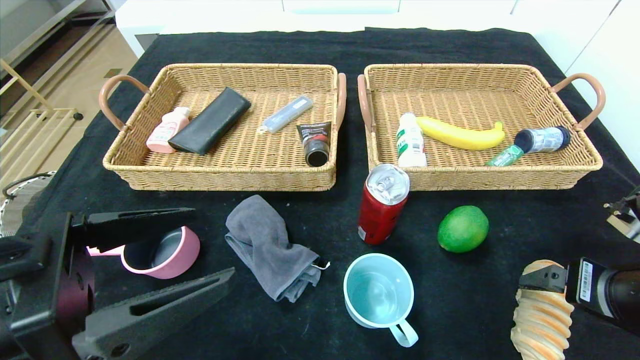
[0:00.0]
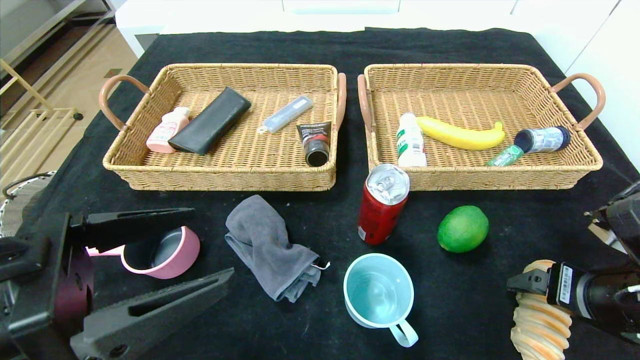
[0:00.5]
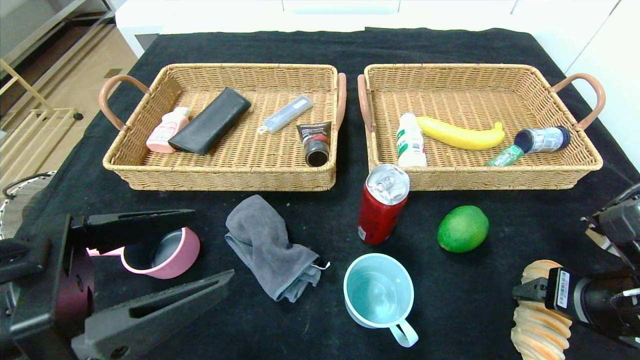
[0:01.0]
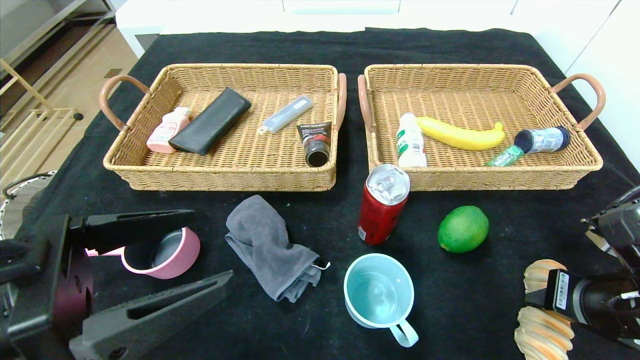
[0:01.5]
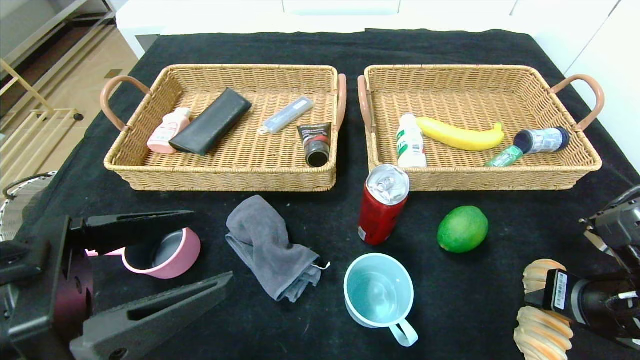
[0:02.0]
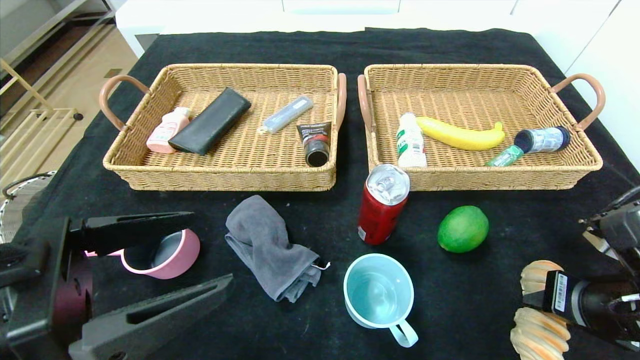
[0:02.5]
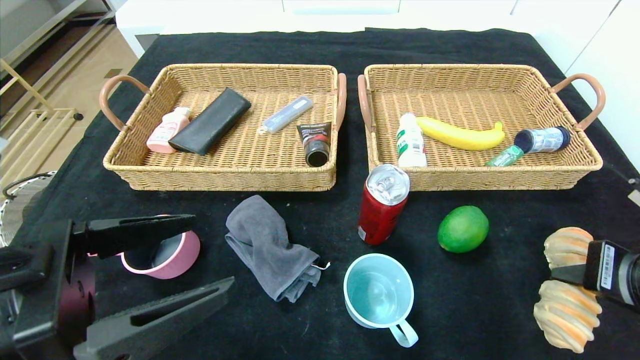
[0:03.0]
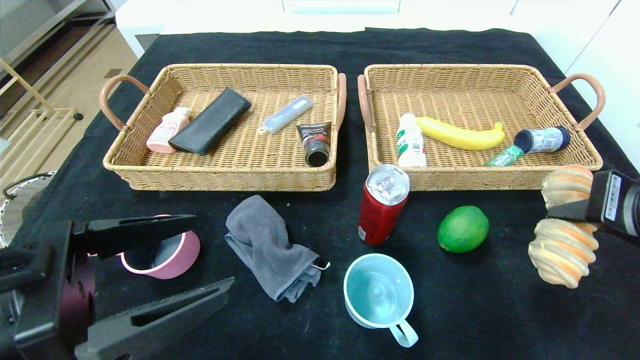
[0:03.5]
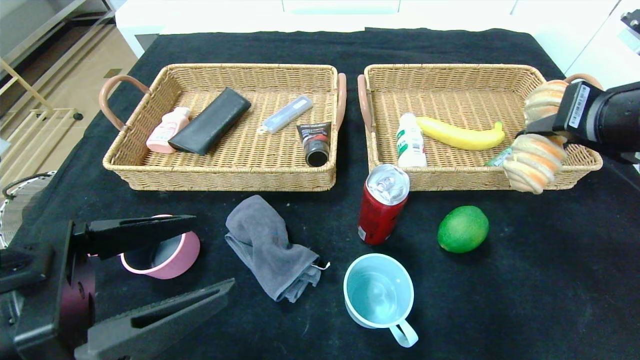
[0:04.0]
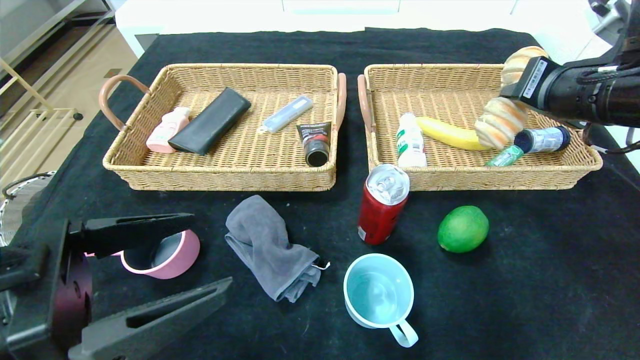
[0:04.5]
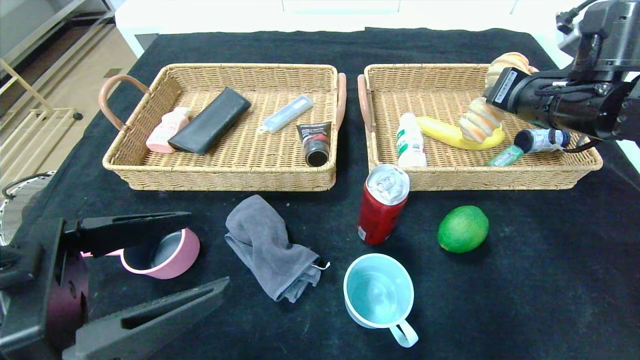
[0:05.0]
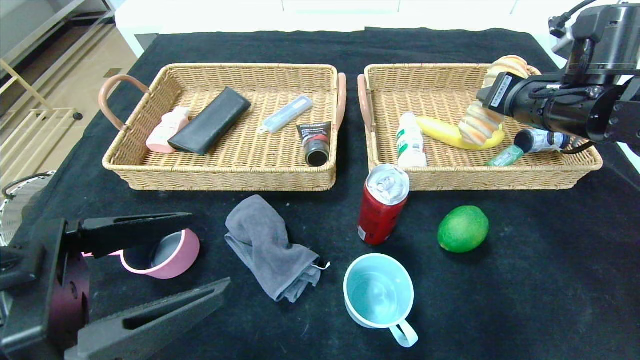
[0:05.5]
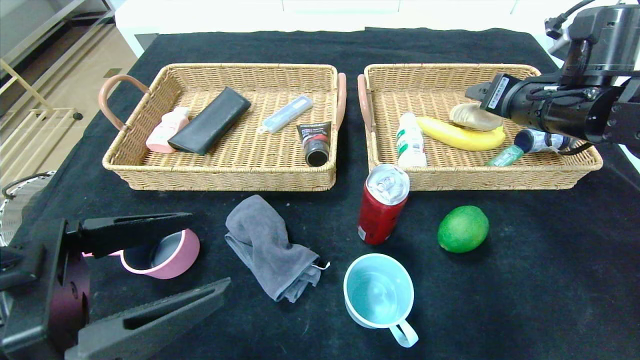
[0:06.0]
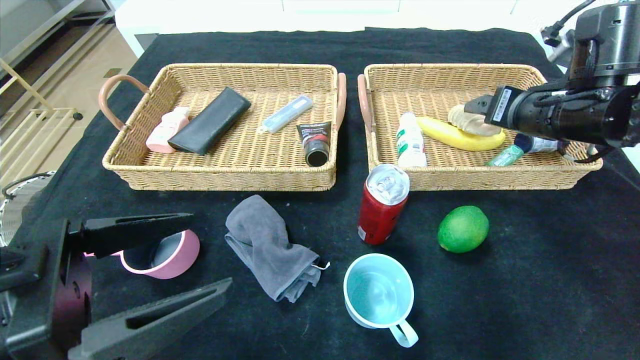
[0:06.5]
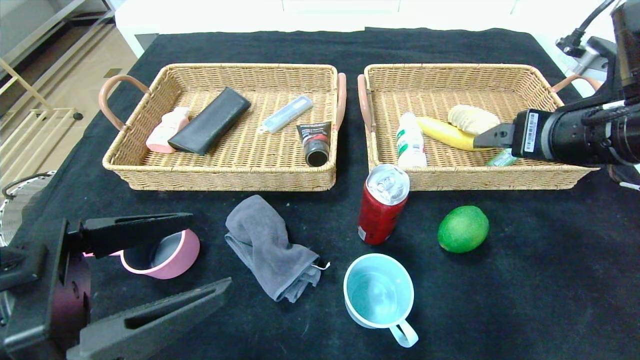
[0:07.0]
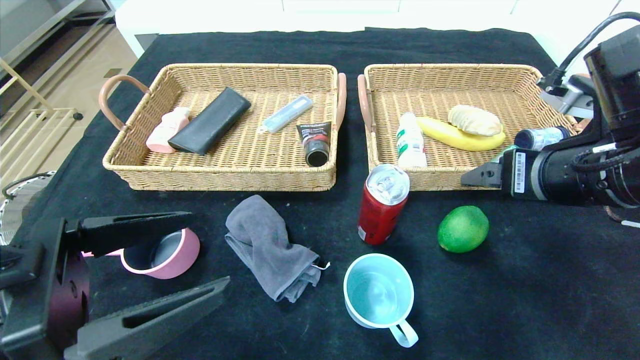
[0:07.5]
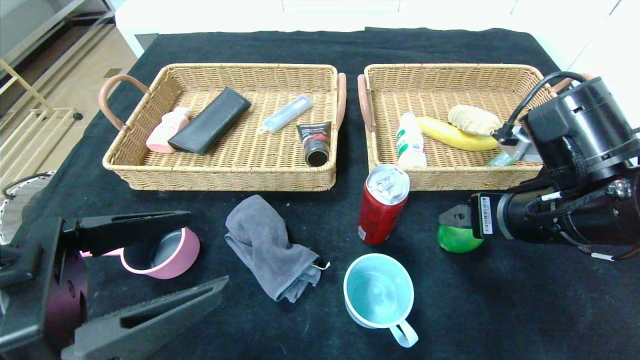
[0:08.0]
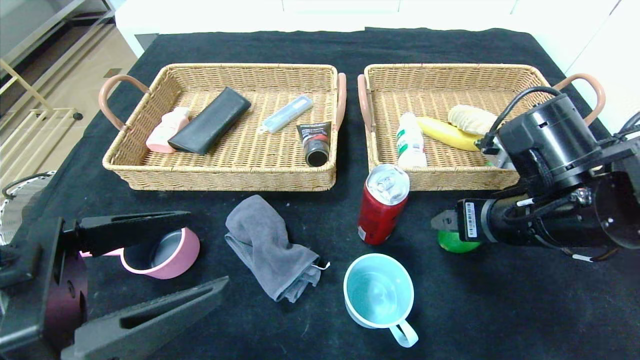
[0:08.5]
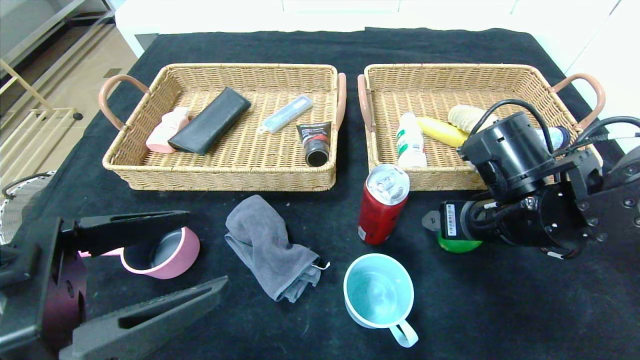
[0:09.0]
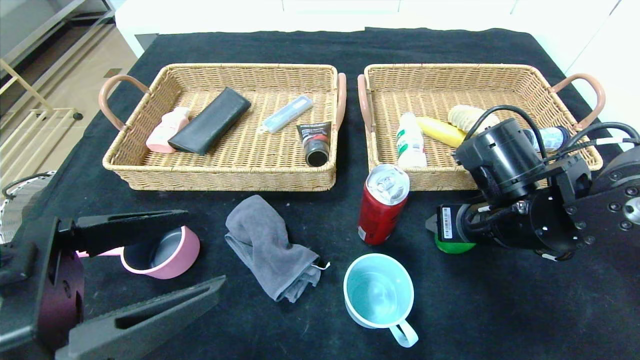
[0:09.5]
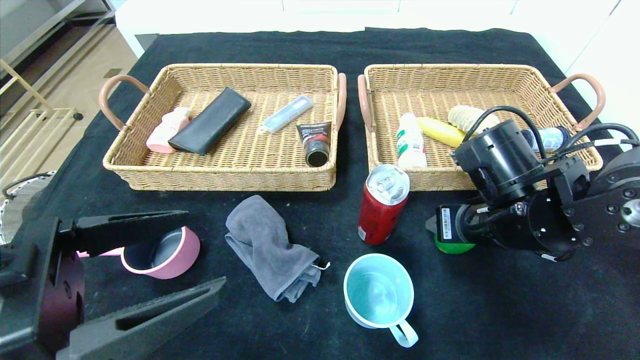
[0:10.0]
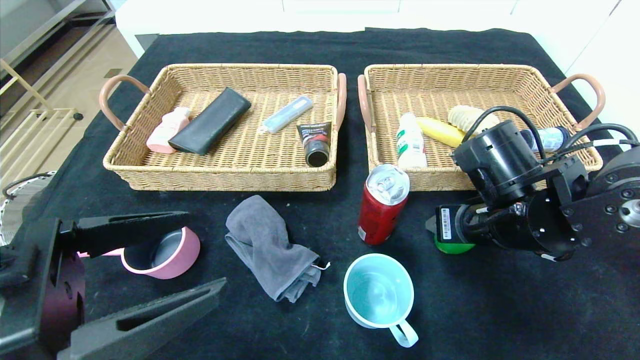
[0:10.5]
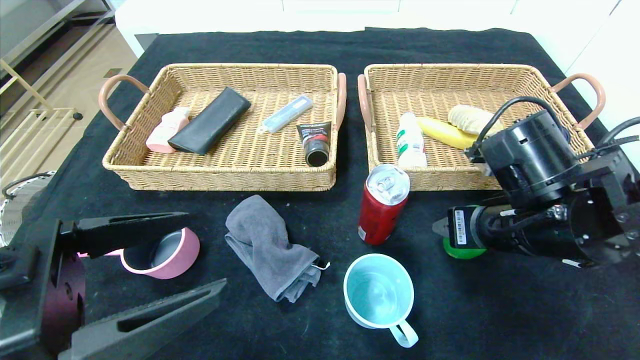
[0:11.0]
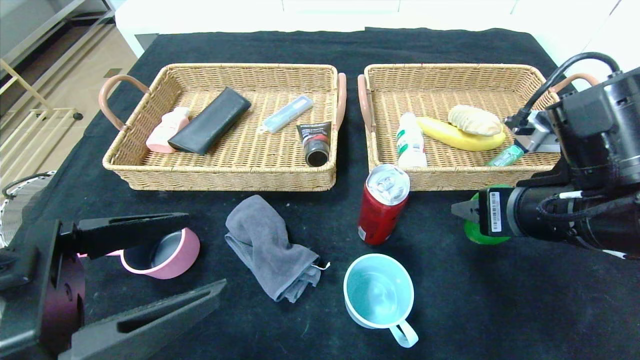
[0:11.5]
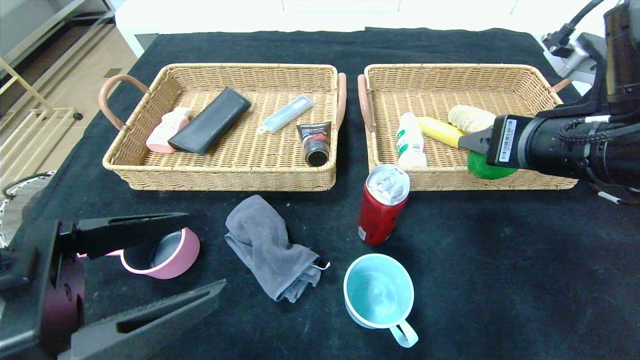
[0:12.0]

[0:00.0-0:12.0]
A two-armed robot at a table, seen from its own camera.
Step, 0:00.0 to 0:05.5: Grasp the long bread and put it in the right basket.
0:00.0 to 0:02.0: The right gripper closes up.
0:02.0 to 0:04.0: The right gripper heads upward, covering roughly 15 cm.
0:04.0 to 0:06.0: The right gripper is displaced forward by roughly 10 cm, and opens its fingers.
0:06.0 to 0:08.0: The right gripper travels backward, downward and to the left by about 15 cm.
0:08.0 to 0:10.0: The right gripper moves approximately 5 cm.
0:10.0 to 0:12.0: The right gripper is displaced upward by approximately 10 cm.

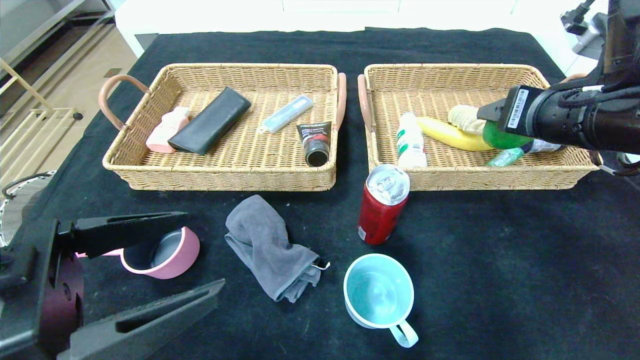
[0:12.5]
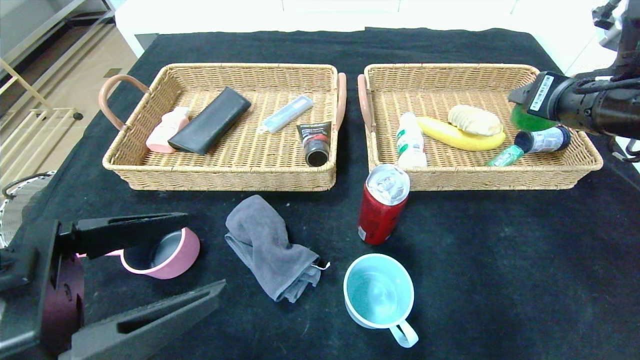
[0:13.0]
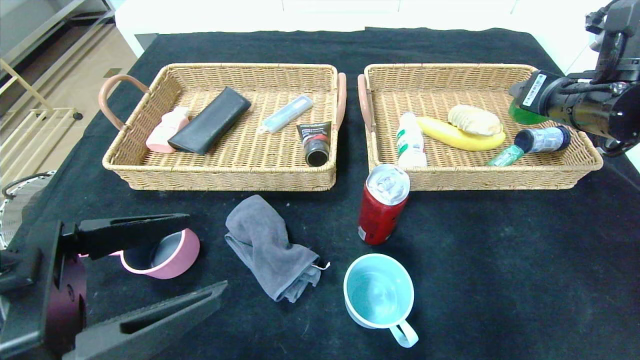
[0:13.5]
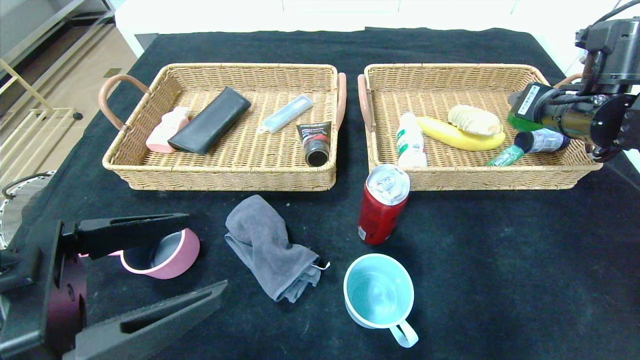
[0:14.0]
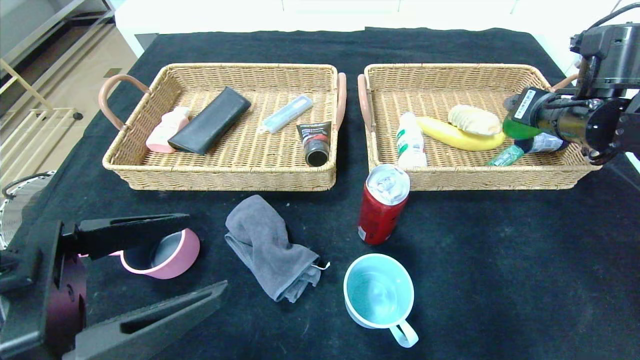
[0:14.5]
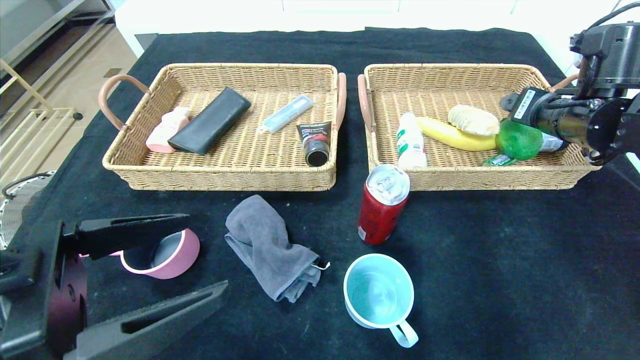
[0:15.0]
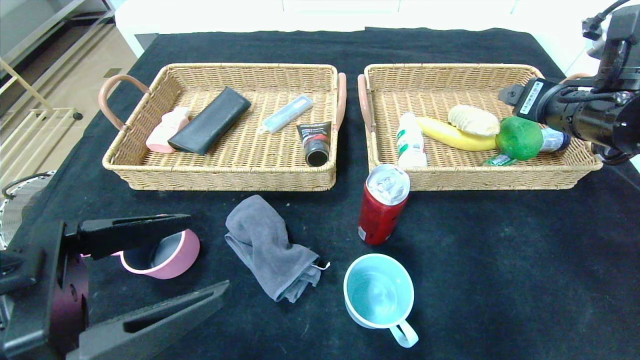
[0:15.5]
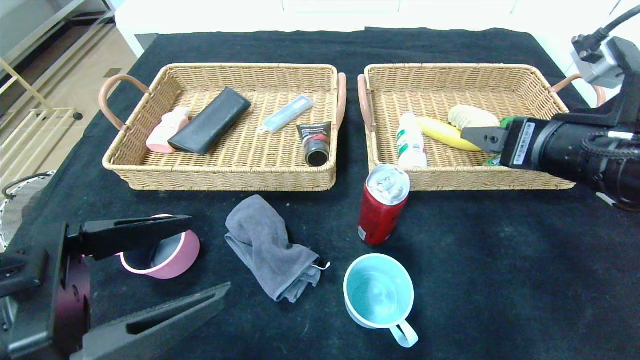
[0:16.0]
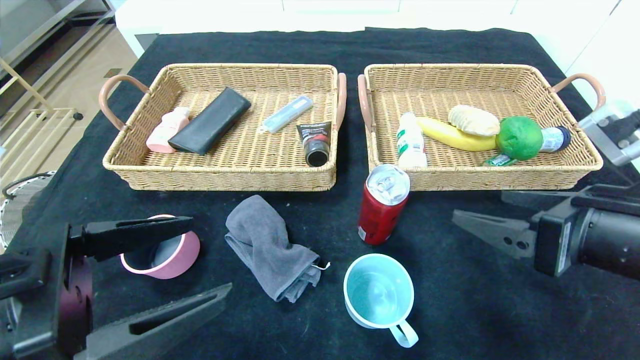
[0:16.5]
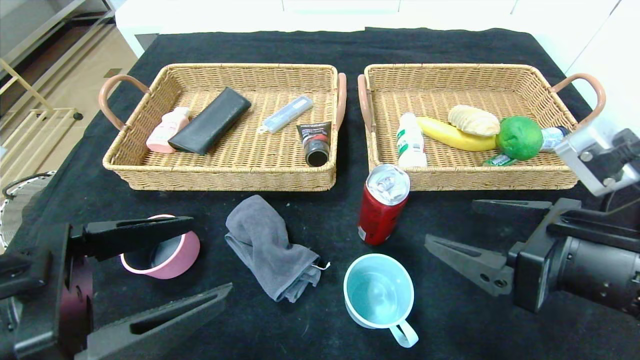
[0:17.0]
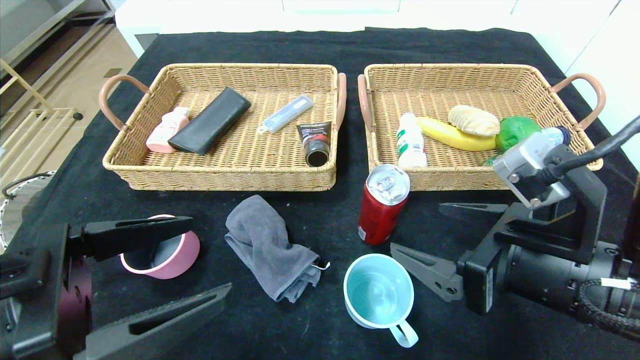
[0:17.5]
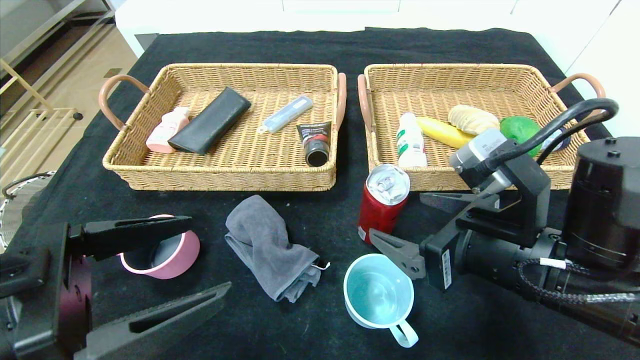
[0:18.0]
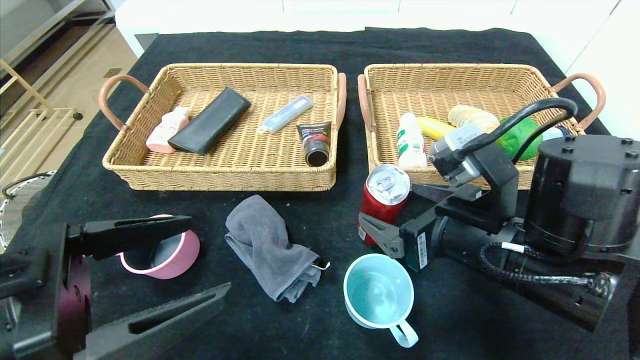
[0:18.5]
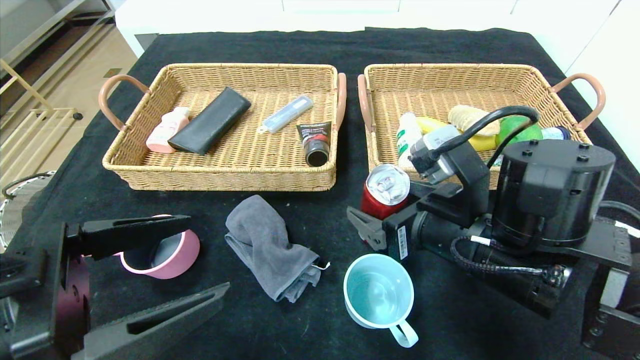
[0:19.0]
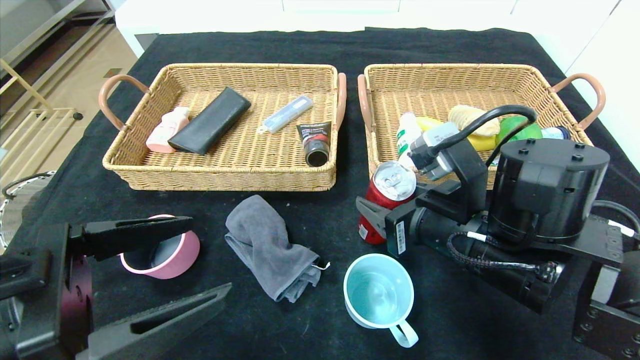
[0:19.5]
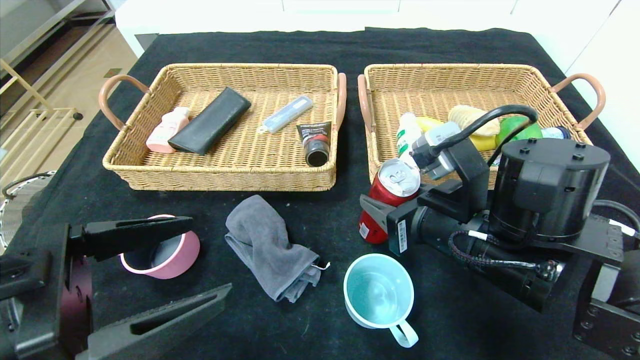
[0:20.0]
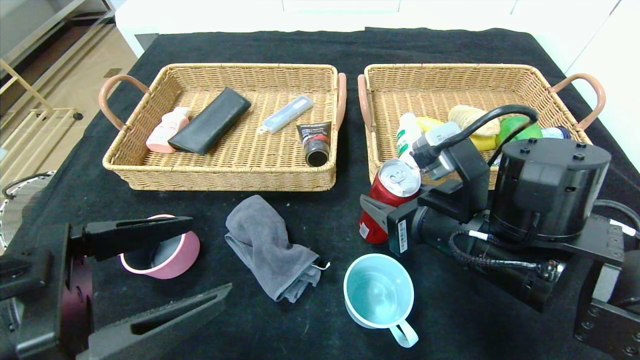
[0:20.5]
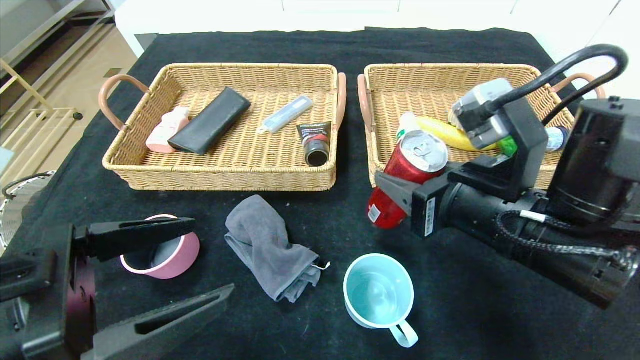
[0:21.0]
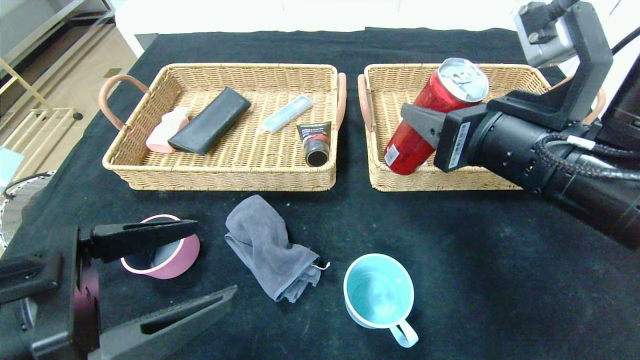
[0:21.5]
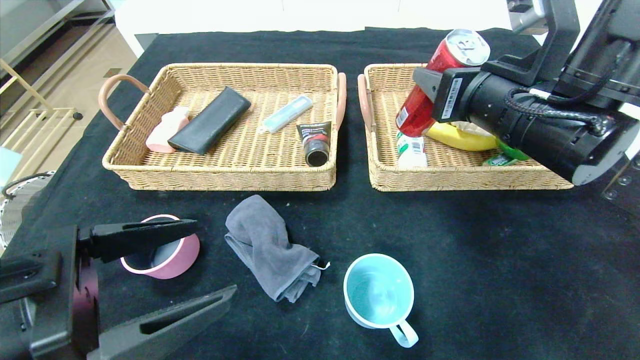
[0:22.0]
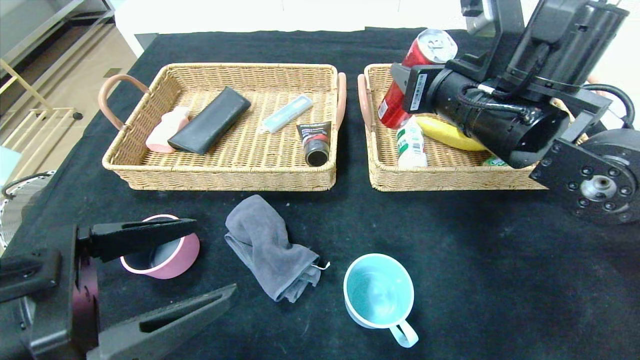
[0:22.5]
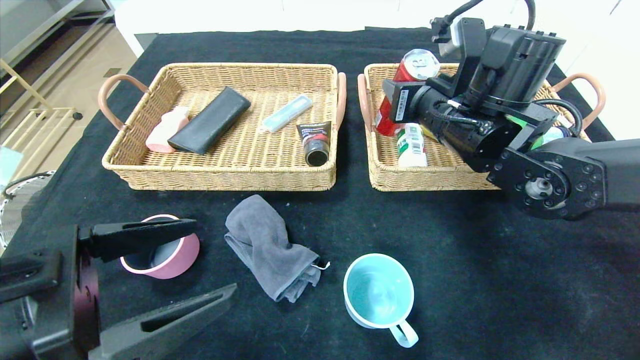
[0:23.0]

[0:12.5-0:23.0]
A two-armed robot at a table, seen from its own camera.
Step, 0:12.5 to 0:14.5: Grasp the green lemon and put it in the right basket.
0:12.5 to 0:14.5: The right gripper travels forward and to the right by roughly 10 cm.
0:14.5 to 0:16.5: The right gripper heads backward, covering roughly 20 cm.
0:16.5 to 0:19.0: The right gripper moves to the left and forward, approximately 10 cm.
0:19.0 to 0:21.0: The right gripper closes up.
0:21.0 to 0:23.0: The right gripper moves forward, about 15 cm.
